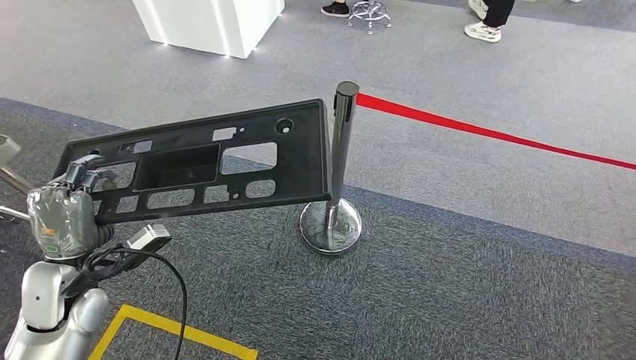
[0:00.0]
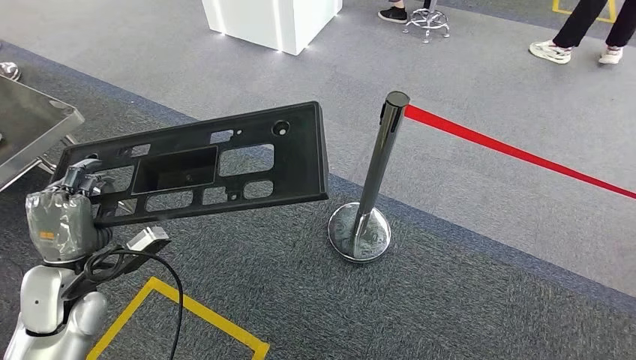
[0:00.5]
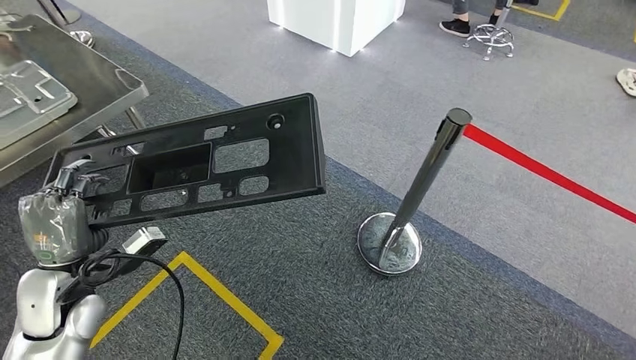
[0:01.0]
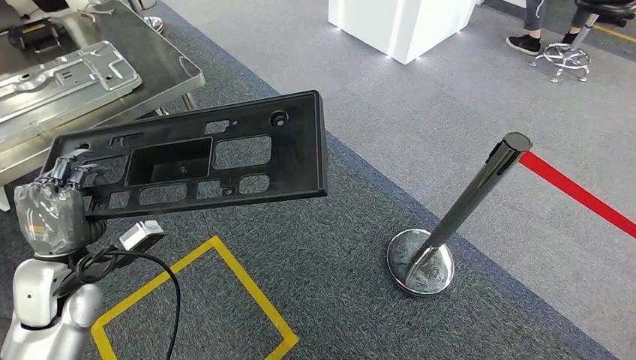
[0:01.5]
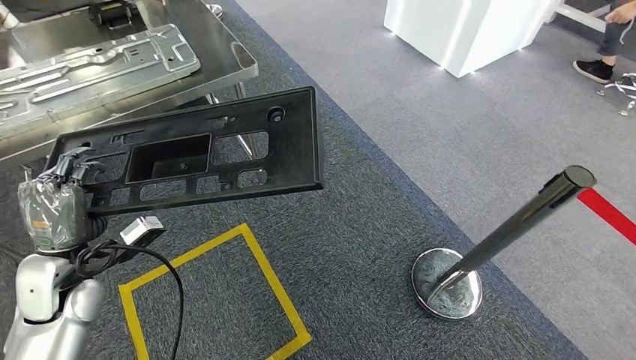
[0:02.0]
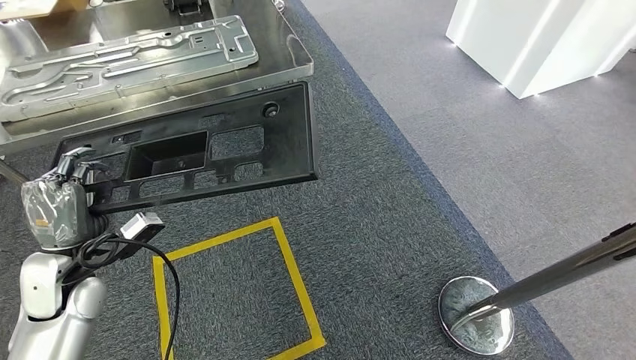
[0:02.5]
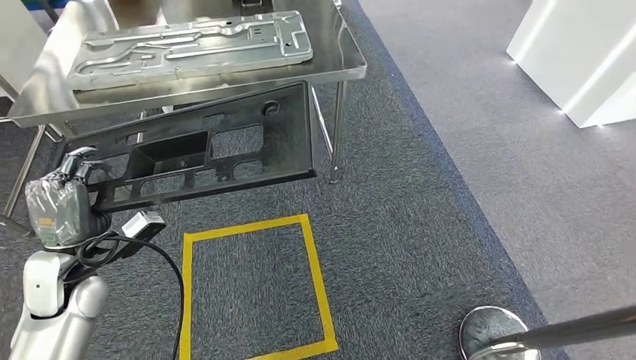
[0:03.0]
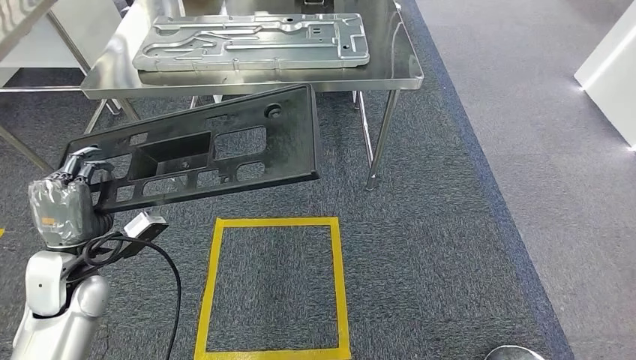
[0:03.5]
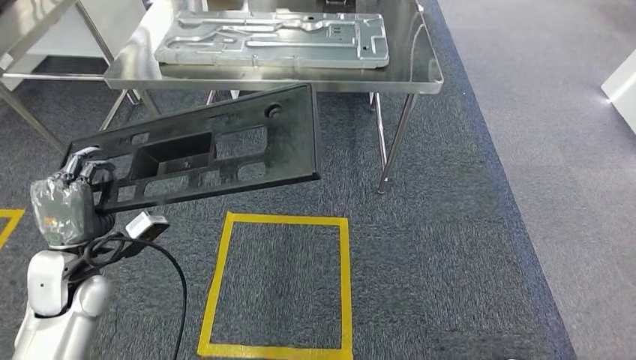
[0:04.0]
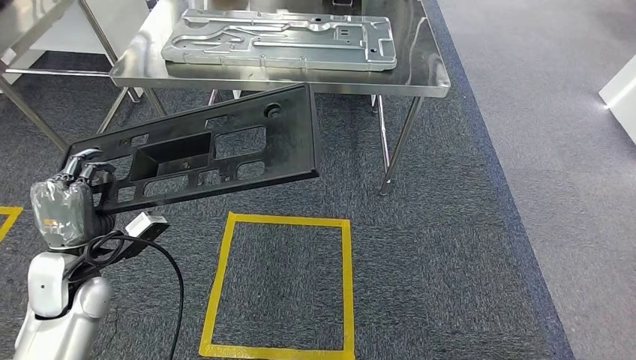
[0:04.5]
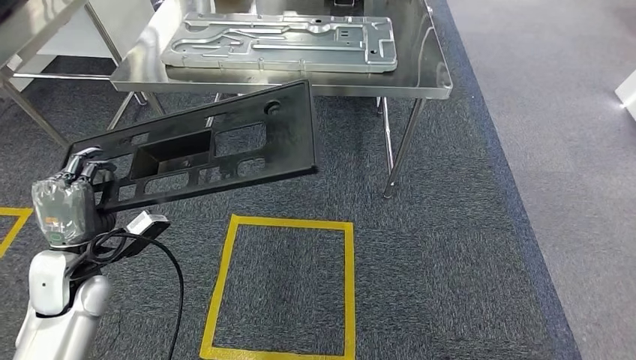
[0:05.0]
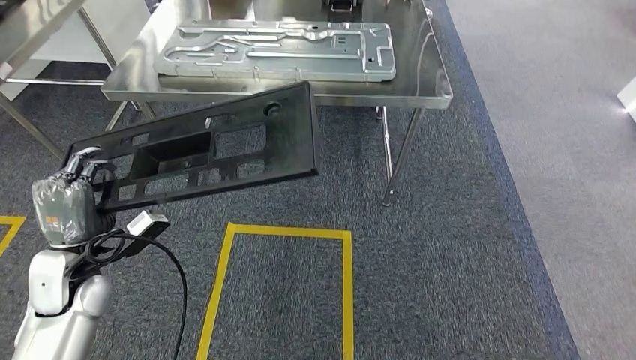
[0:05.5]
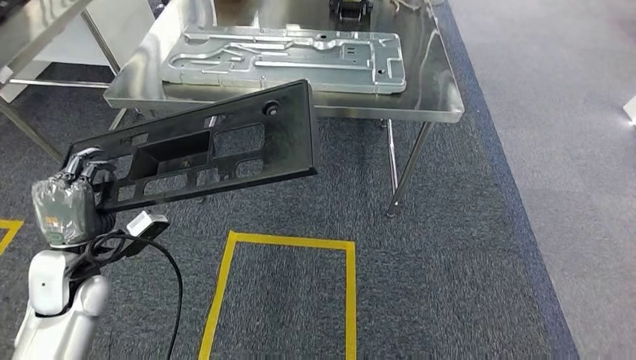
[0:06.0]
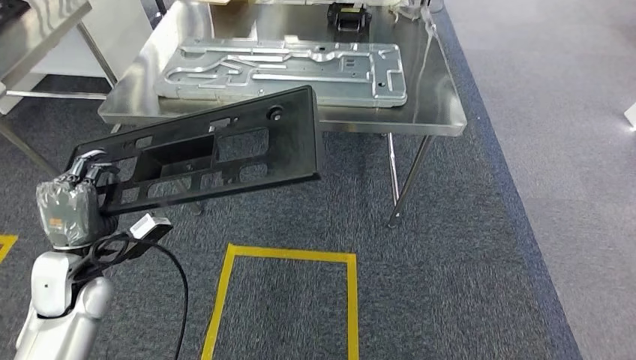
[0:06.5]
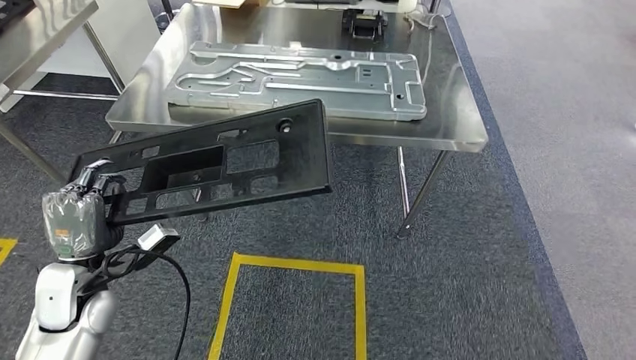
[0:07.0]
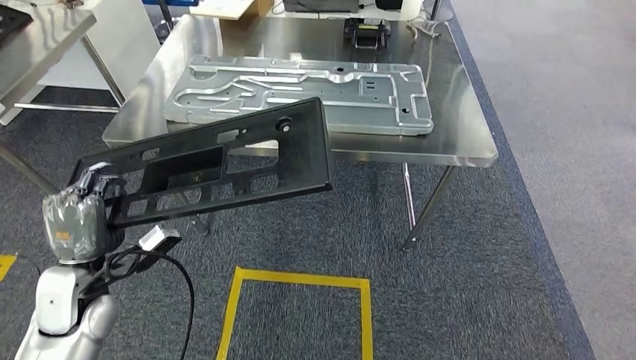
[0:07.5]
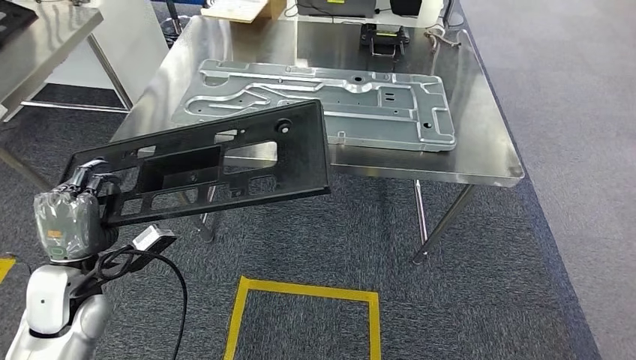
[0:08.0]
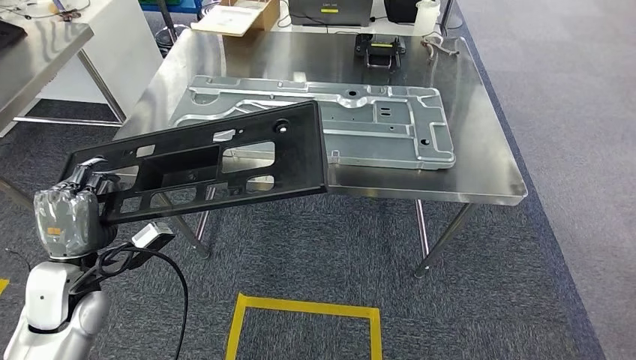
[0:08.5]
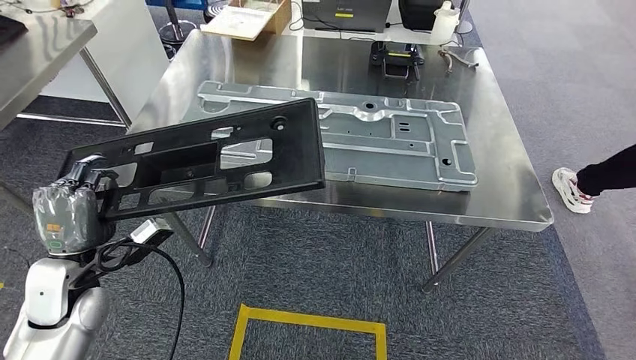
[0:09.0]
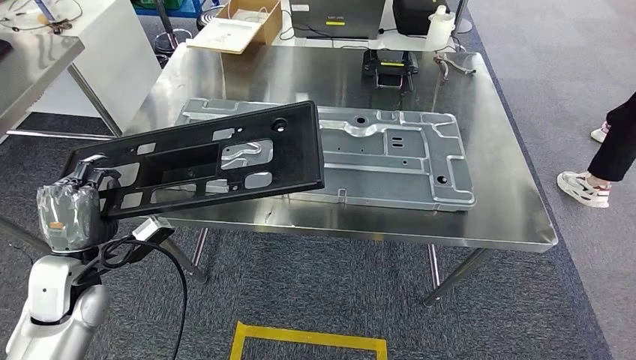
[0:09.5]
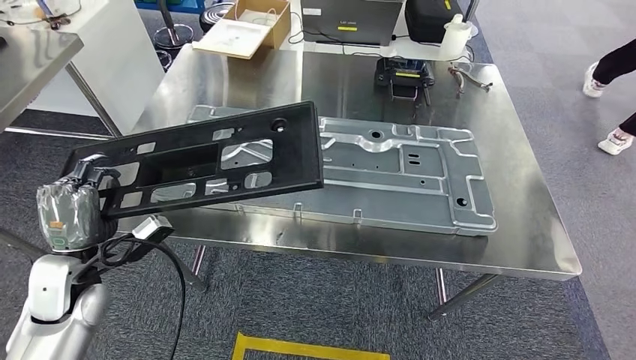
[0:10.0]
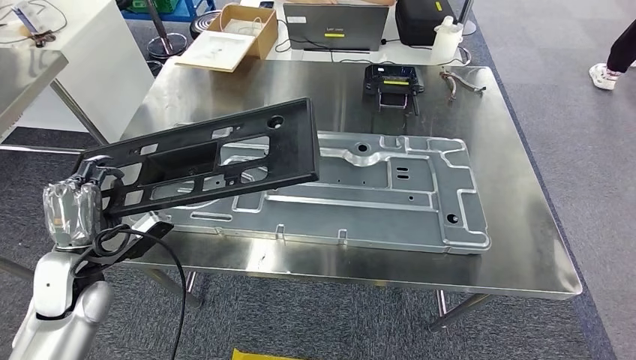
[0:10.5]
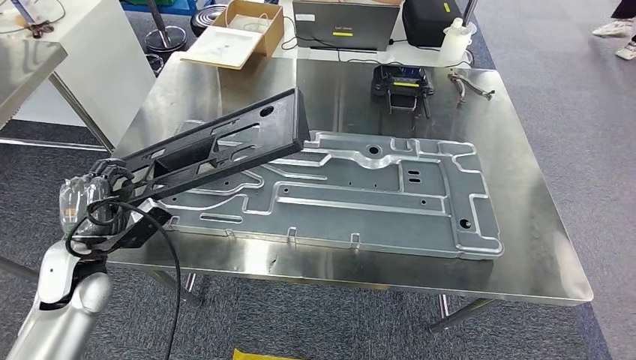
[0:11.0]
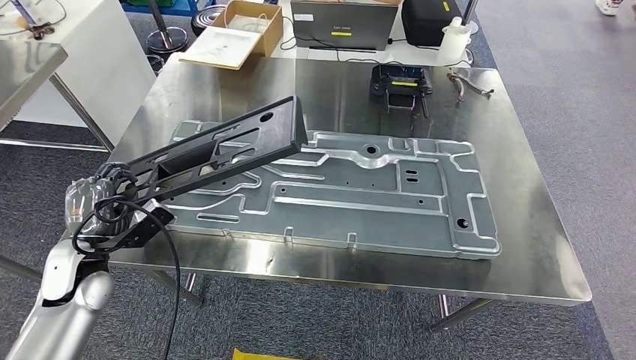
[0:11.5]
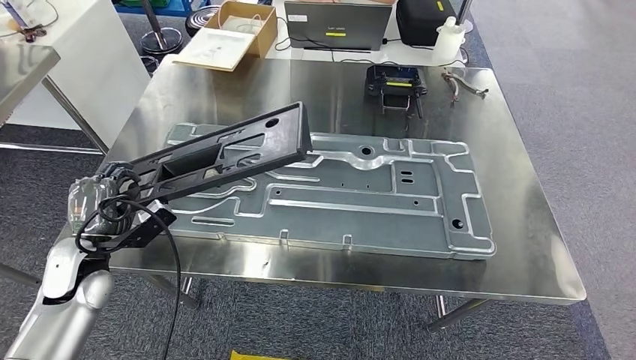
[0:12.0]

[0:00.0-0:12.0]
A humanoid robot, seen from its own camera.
Step, 0:00.0 to 0:04.5: Move the large parts to the workbench.

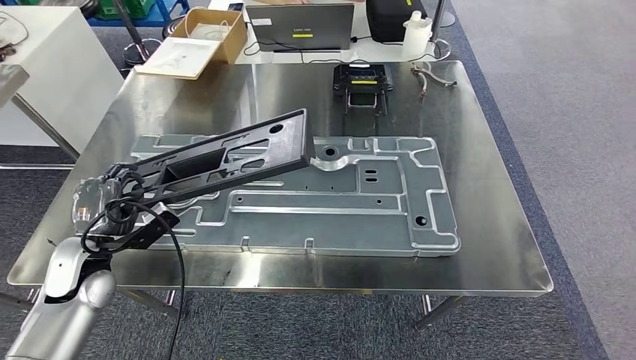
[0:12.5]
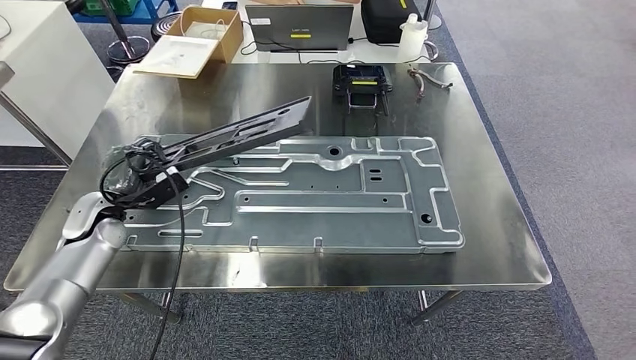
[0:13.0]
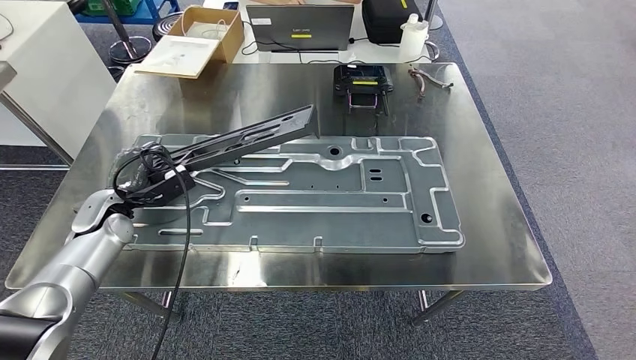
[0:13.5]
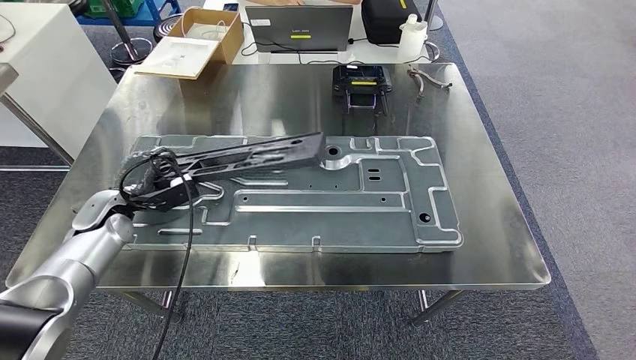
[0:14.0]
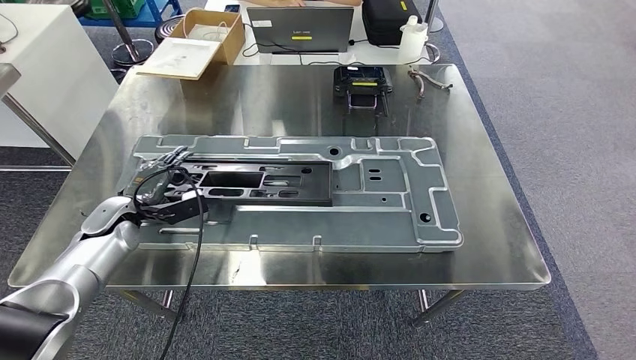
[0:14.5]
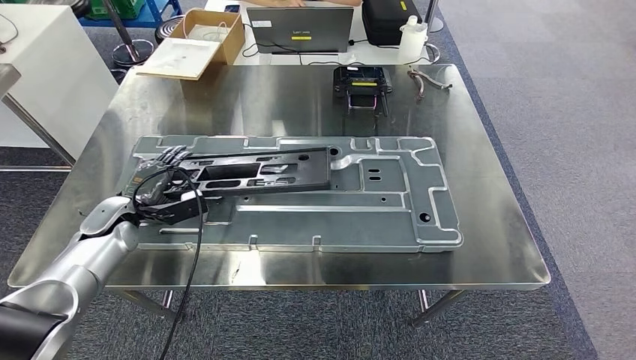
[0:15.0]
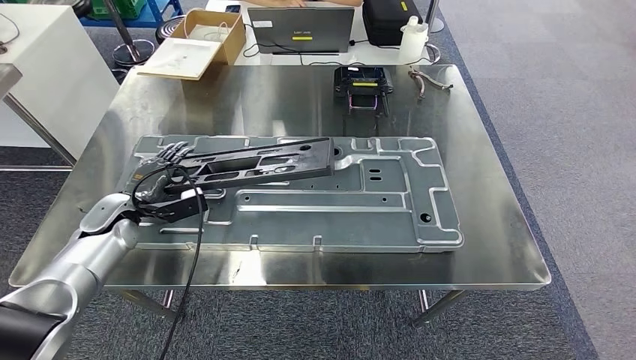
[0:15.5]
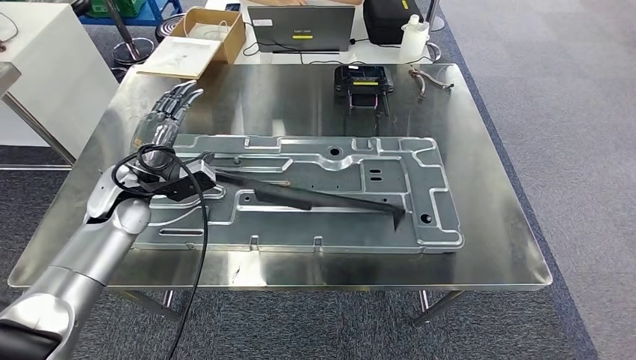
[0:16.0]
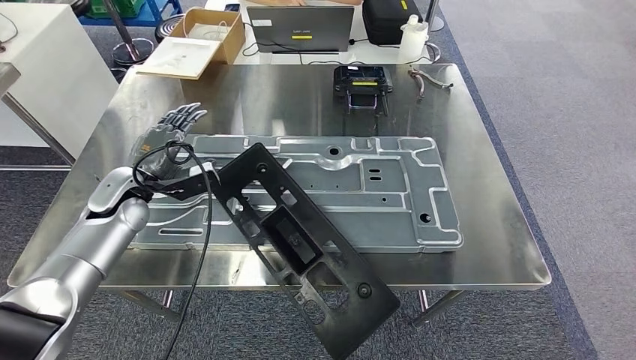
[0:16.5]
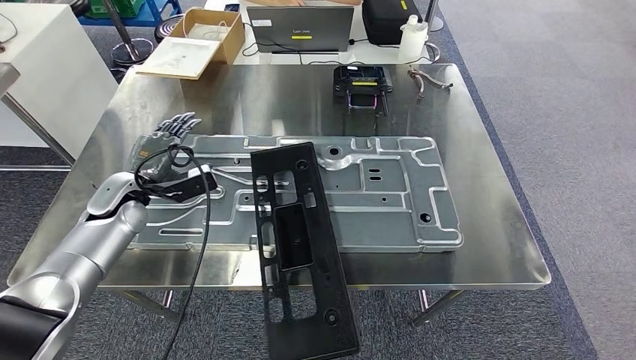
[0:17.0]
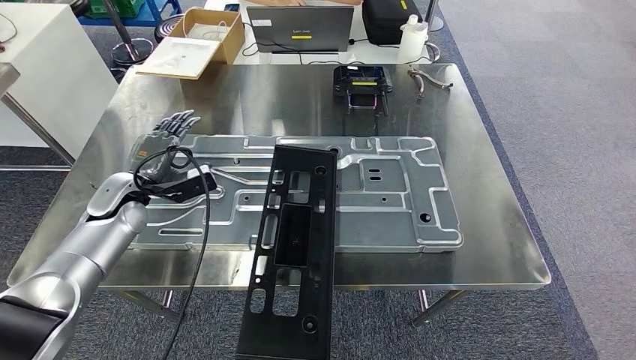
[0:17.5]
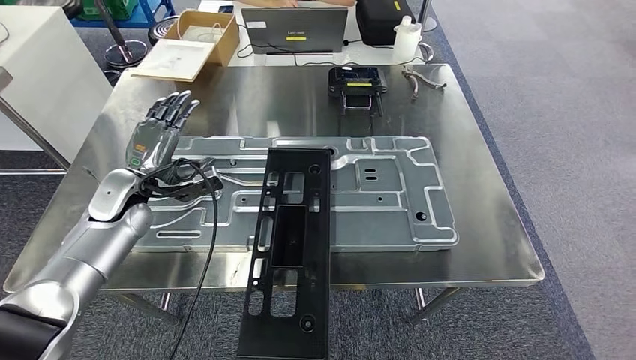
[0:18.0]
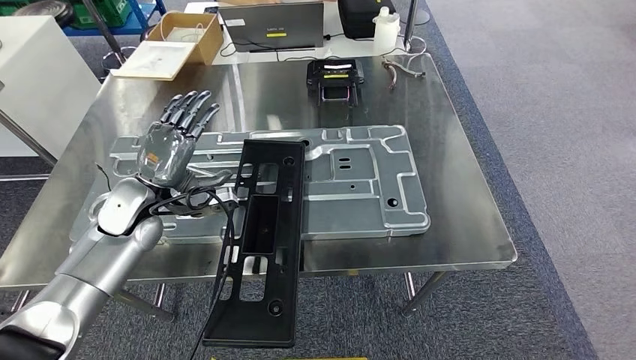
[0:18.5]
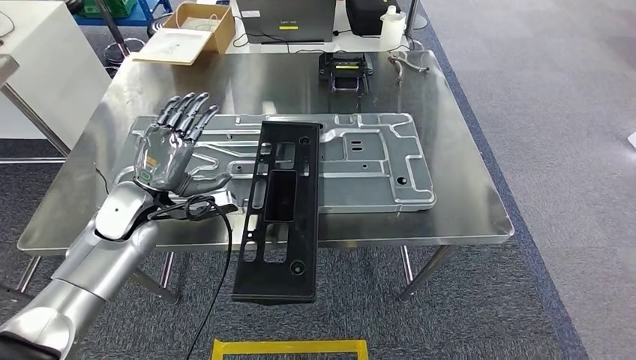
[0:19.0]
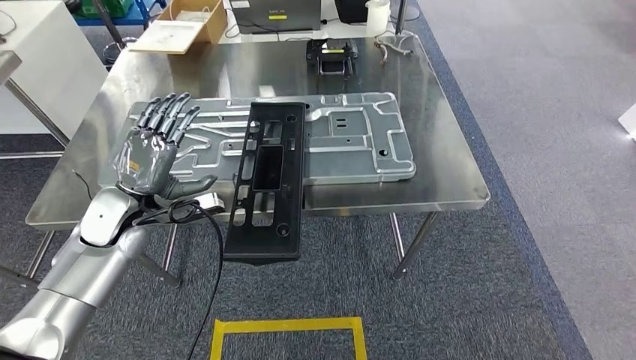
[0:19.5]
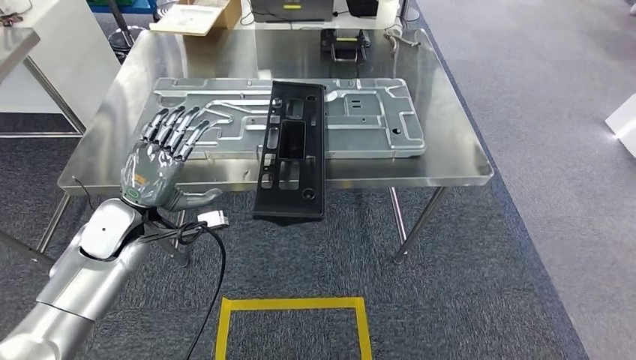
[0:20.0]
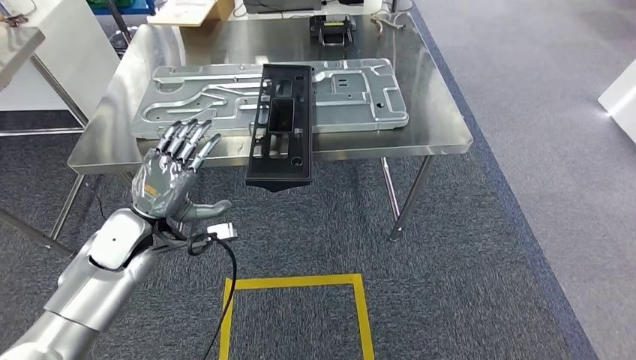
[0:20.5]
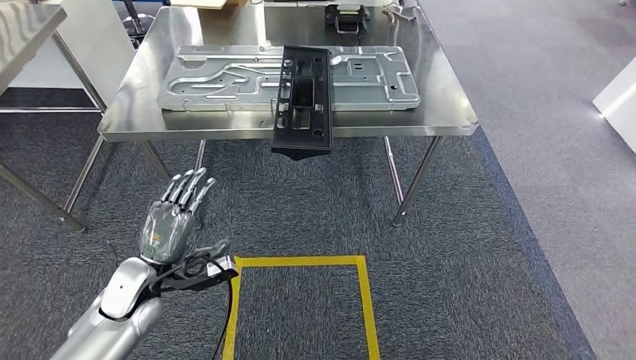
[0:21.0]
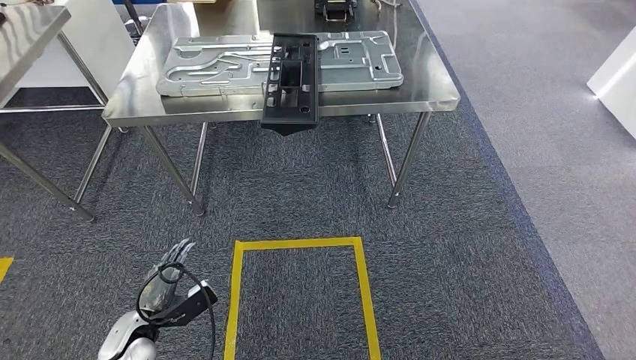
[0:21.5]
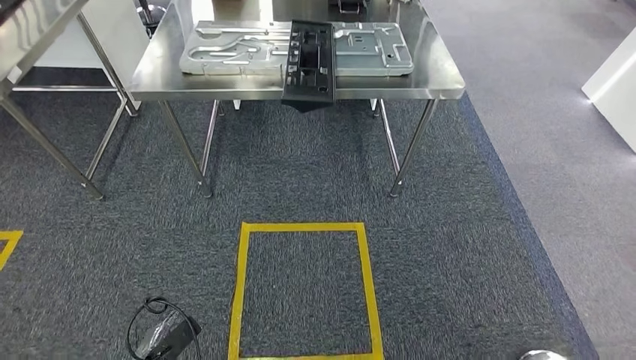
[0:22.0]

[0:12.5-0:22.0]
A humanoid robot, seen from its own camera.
Step, 0:12.5 to 0:18.5: Insert the large parts into the corresponding slots on the workbench.
0:14.5 to 0:16.5: The left hand heads upward, covering some 5 cm.
